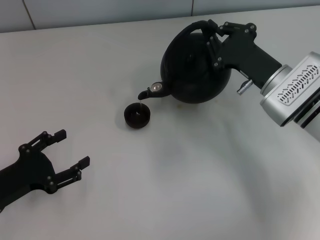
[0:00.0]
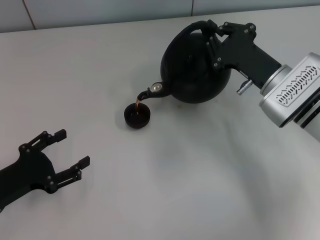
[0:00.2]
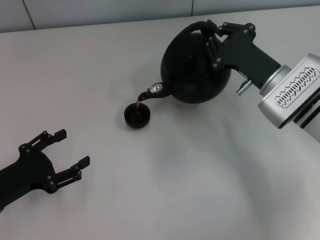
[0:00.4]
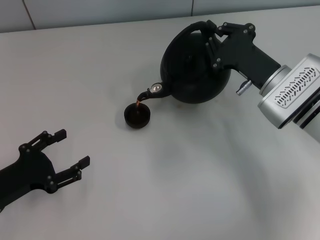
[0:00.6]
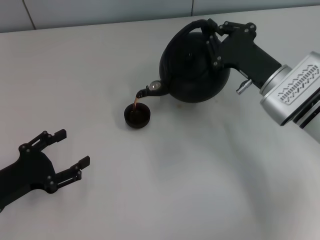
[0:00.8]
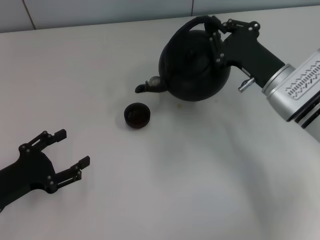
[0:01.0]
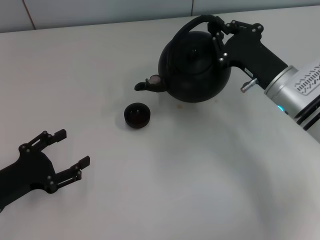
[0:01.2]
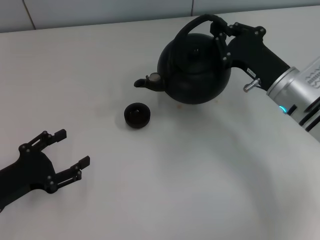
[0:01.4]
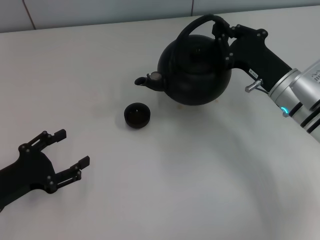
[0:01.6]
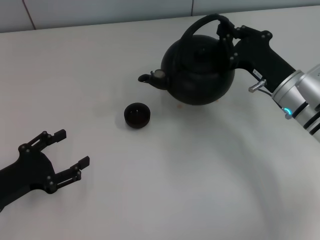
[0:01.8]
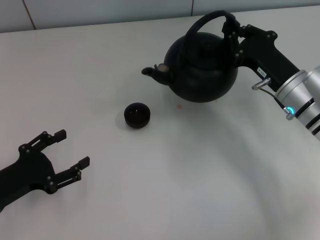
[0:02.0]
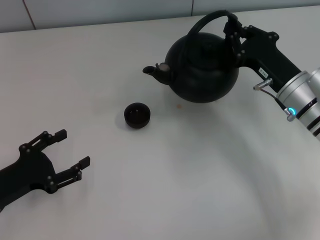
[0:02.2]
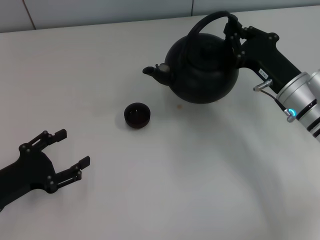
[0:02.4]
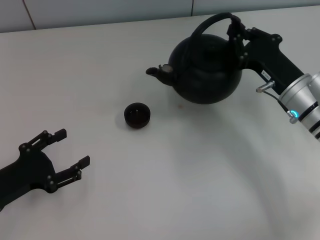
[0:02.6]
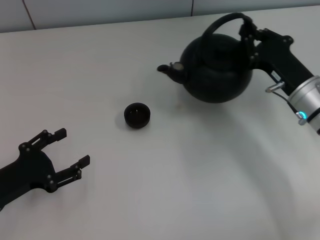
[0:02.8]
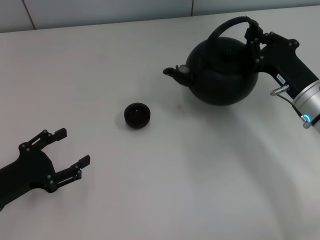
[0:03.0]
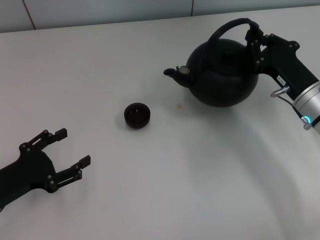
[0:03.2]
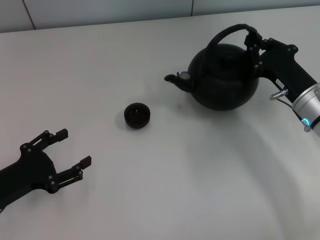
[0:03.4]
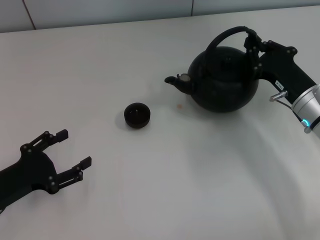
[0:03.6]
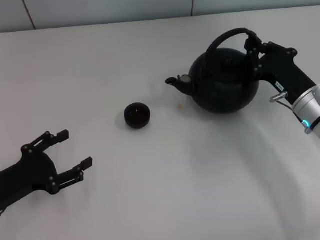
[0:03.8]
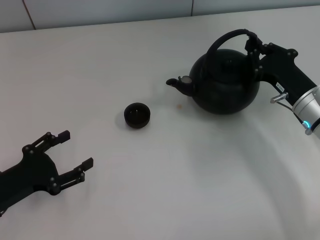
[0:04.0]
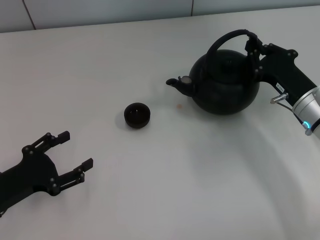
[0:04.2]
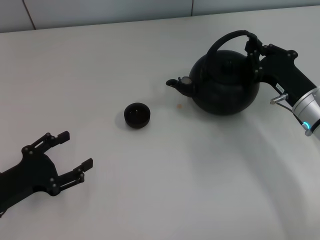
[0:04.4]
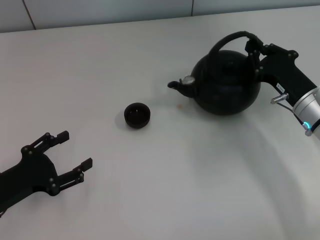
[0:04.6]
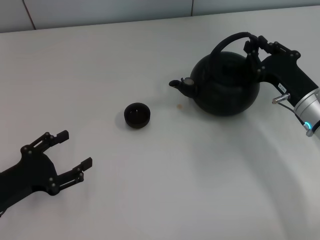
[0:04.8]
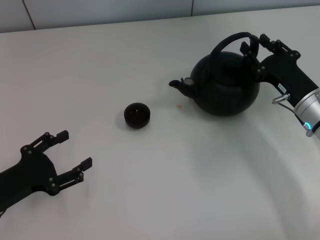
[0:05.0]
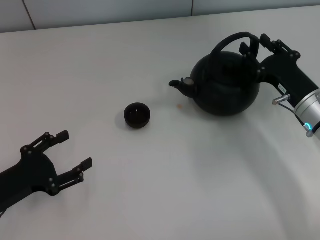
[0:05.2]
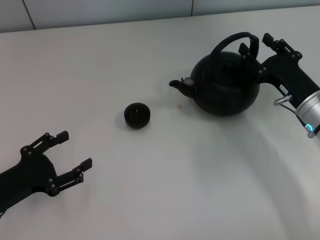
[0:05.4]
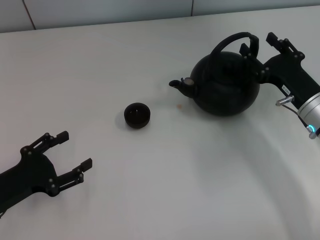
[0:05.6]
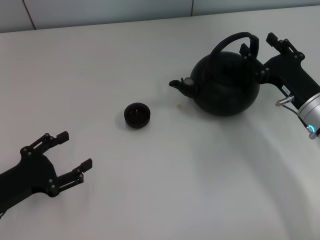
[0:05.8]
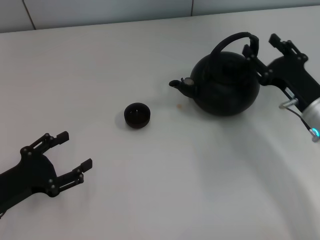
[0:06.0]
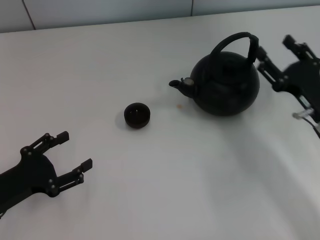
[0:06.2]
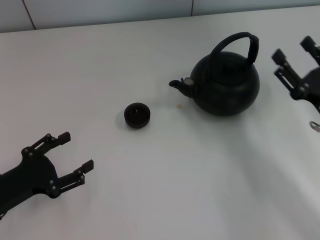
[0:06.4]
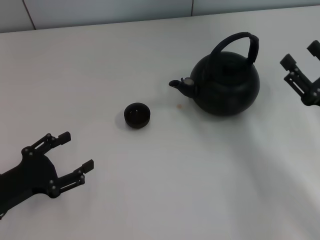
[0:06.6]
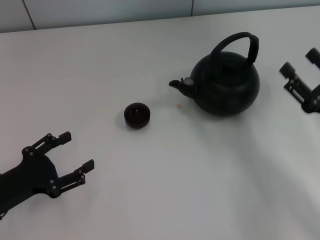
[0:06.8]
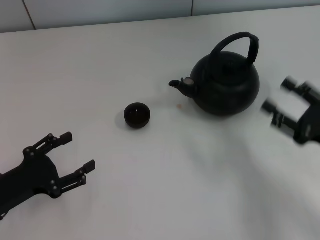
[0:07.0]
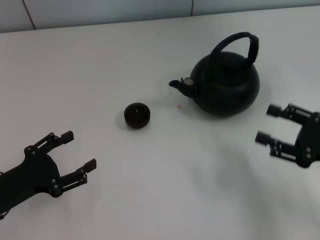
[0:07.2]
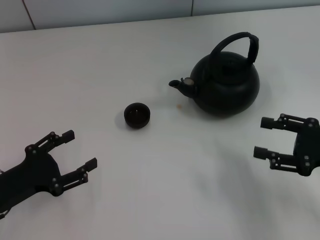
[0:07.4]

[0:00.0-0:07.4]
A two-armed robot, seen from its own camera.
Task of the whole recording: Grasp the handle of the teapot with one hand and pour tea into the teacup.
Step, 0:01.4 to 0:06.2: Put down the teapot with the right gripper.
0:00.0 to 0:01.4: The grippers move only a little.
0:01.4 to 0:03.0: There are only small adjustments of the grippers.
0:03.0 to 0:04.4: Neither gripper changes place.
0:04.4 to 0:06.0: The right gripper opens.
0:06.0 to 0:07.4: The right gripper is displaced backward and to the right by some 10 cm.

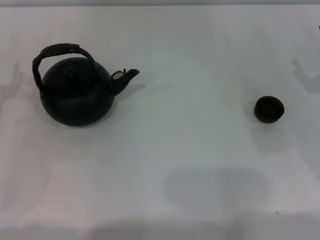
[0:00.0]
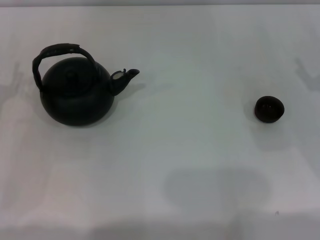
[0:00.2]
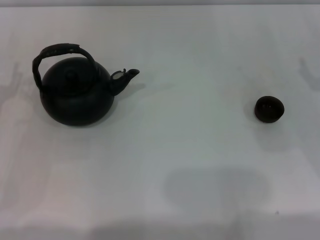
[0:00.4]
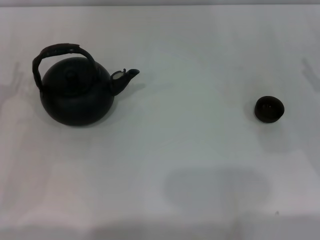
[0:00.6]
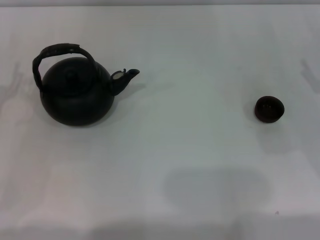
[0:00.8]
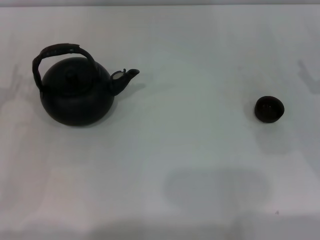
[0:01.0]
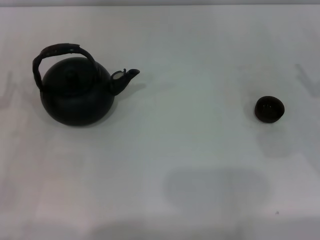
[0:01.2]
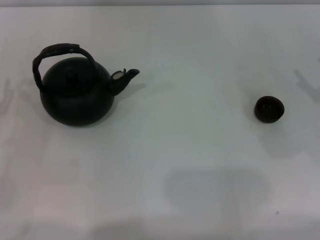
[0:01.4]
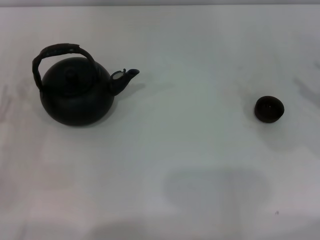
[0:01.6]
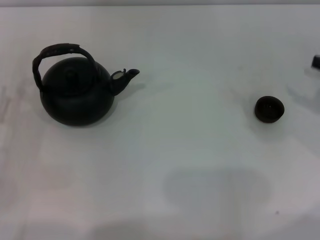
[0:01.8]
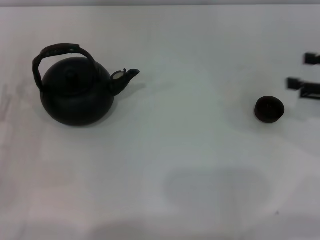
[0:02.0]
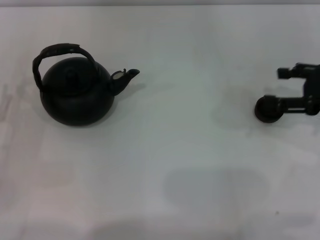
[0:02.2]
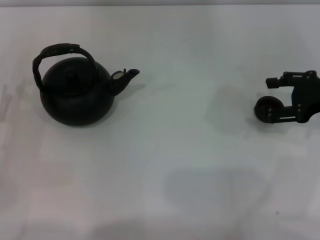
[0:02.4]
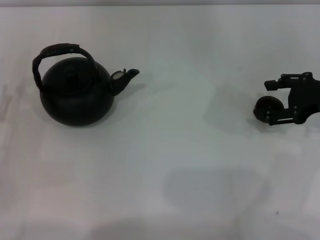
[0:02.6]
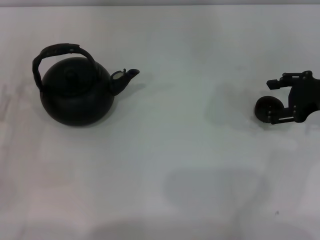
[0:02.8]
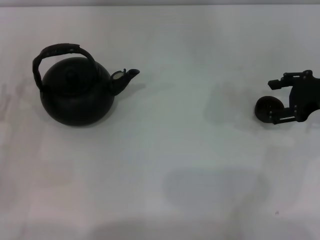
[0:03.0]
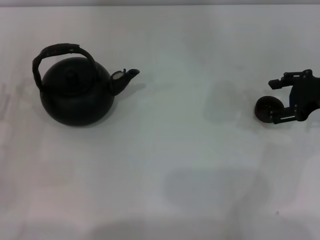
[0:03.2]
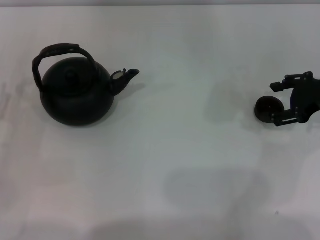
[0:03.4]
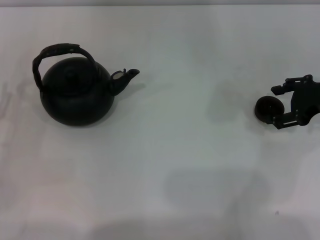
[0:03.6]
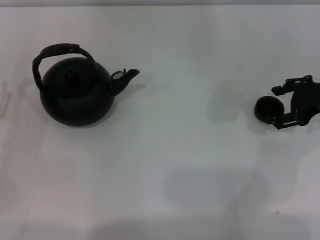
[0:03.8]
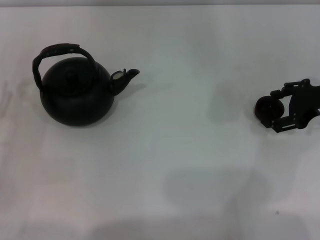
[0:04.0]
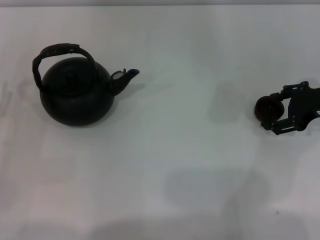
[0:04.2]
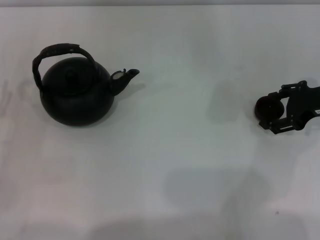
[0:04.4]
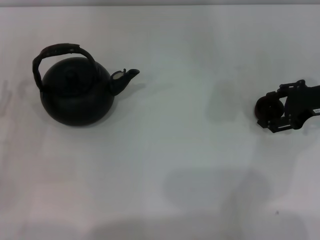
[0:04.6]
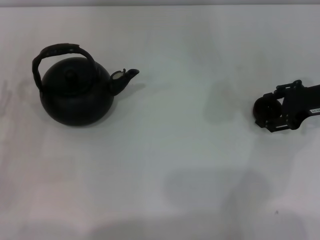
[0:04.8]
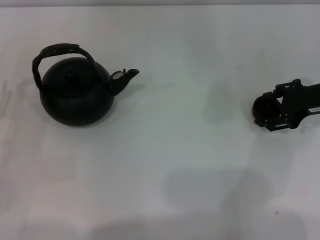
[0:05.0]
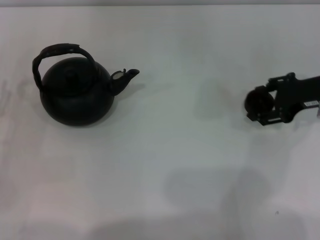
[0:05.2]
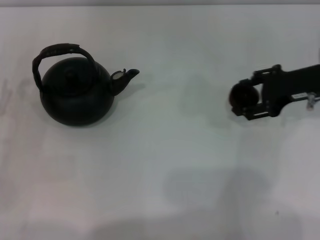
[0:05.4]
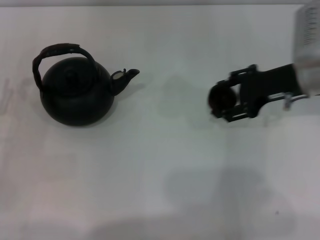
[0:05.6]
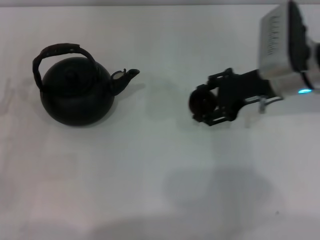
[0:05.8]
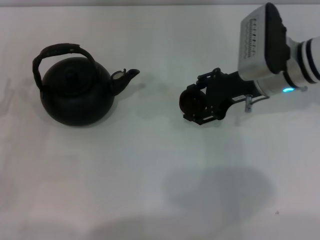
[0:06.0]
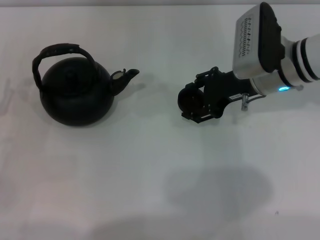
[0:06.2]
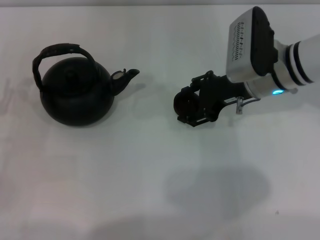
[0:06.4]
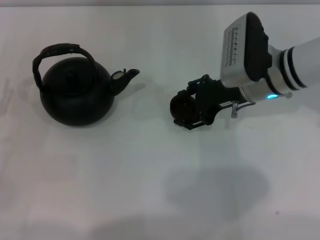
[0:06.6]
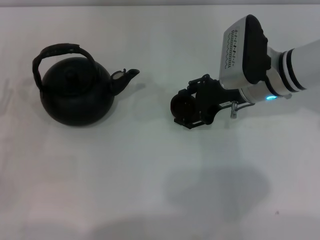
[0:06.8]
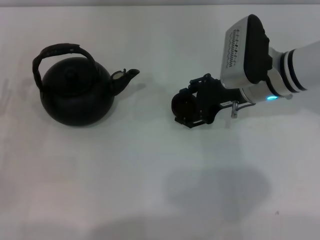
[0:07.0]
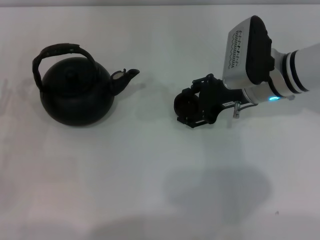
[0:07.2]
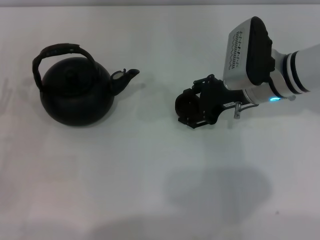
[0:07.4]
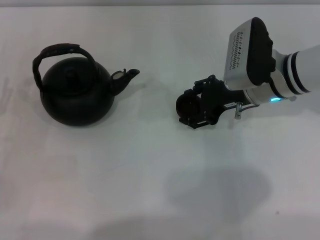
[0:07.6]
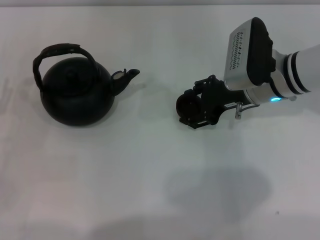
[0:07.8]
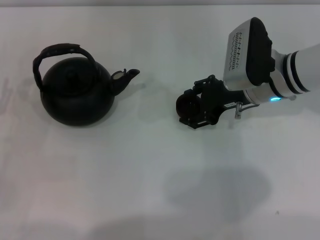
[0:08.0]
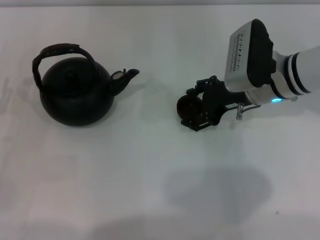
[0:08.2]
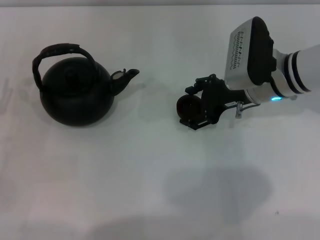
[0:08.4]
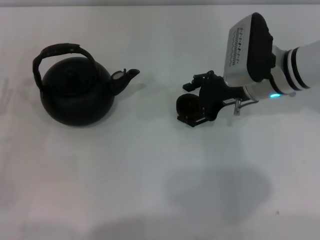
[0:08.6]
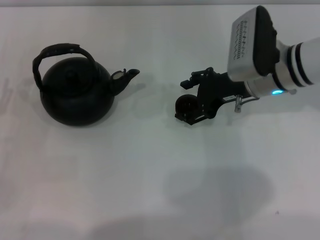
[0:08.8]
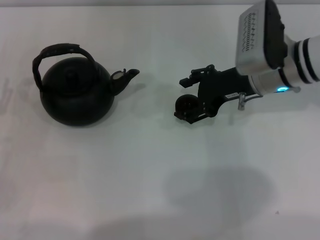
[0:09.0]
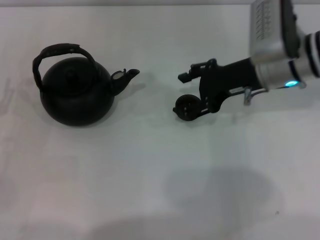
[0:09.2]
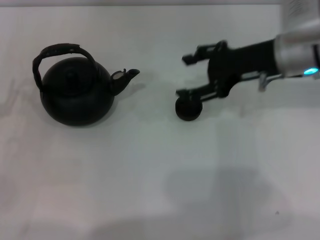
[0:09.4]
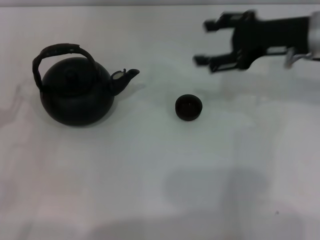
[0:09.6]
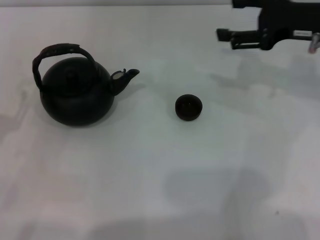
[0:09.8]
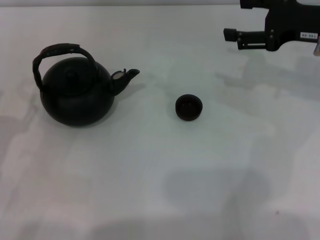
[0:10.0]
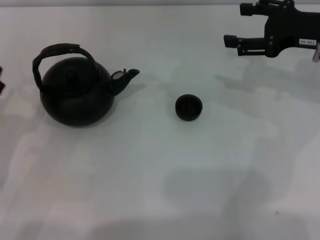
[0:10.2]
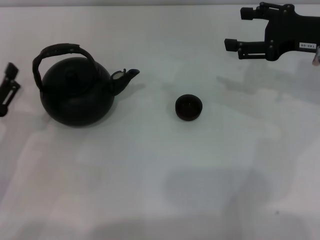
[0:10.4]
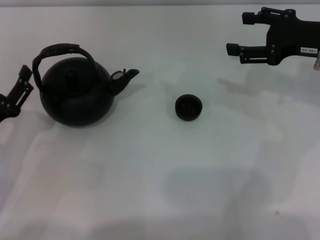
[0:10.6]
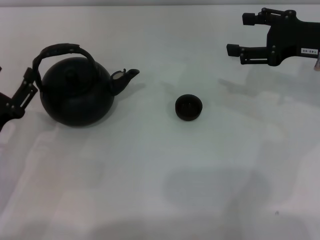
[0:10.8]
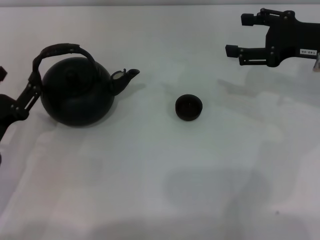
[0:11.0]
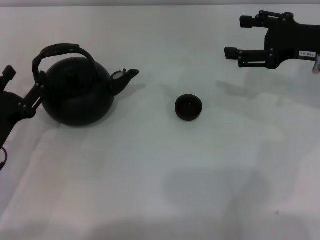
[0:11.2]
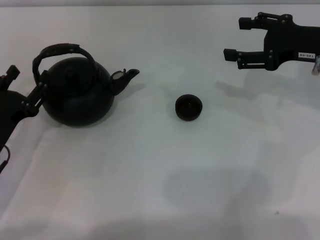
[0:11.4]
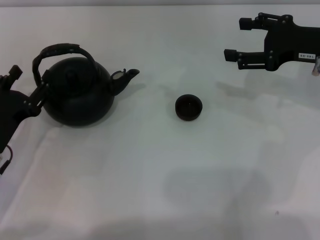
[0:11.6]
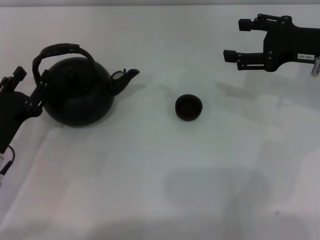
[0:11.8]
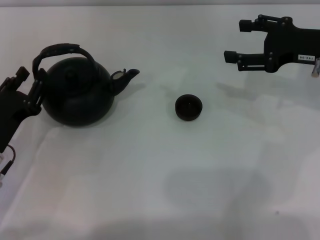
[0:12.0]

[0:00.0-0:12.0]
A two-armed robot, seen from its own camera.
Task of the whole recording: Grasp the handle of the teapot with one hand and pour tea into the teacup.
Step, 0:00.0 to 0:05.0: Pick up the teacup with the right gripper.
Step, 0:05.4 to 0:09.2: Place the teacup in the center of view with the right gripper.
0:01.6 to 0:03.0: The right gripper moves to the left and forward, approximately 10 cm.
0:03.0 to 0:04.4: There are only small adjustments of the grippers.
0:04.4 to 0:06.0: The right gripper moves to the left, approximately 15 cm.
0:06.0 to 0:09.0: The grippers stay close to where they were, moving slightly.
0:09.0 to 0:10.4: The right gripper goes approximately 10 cm to the right.
0:10.4 to 0:12.0: There are only small adjustments of the grippers.

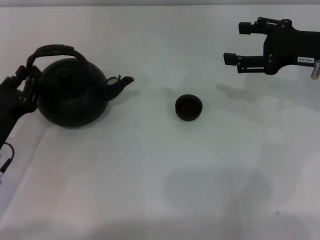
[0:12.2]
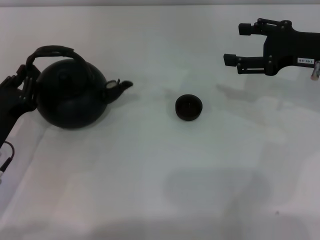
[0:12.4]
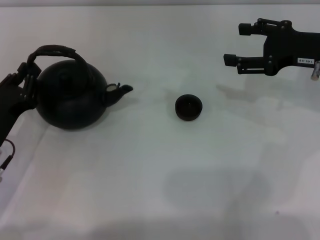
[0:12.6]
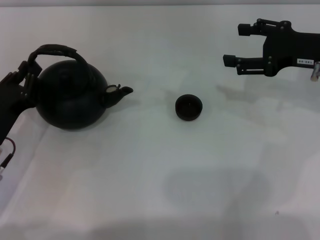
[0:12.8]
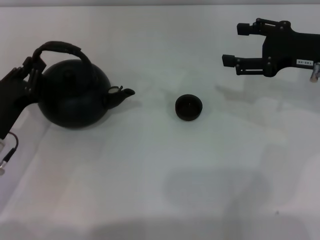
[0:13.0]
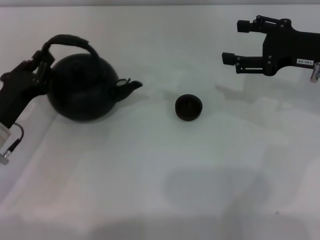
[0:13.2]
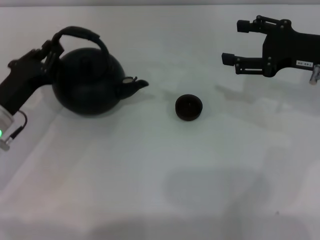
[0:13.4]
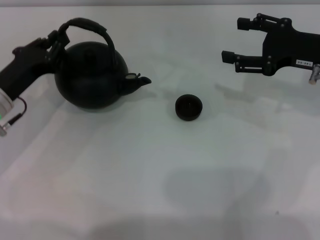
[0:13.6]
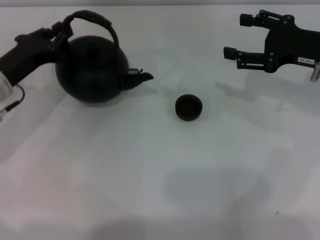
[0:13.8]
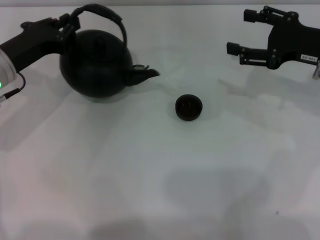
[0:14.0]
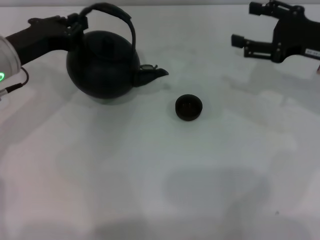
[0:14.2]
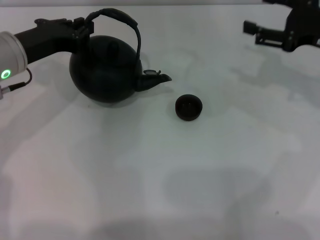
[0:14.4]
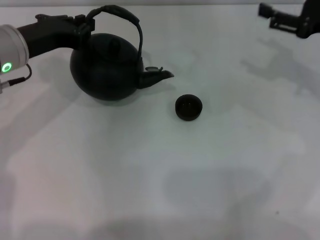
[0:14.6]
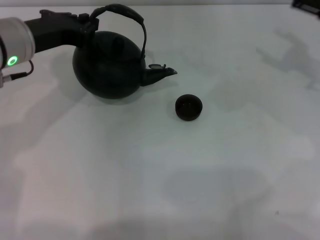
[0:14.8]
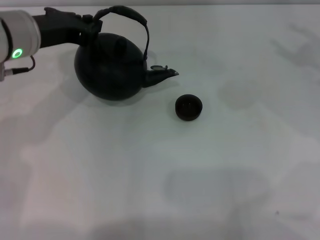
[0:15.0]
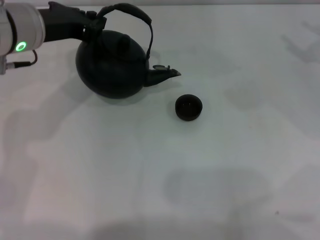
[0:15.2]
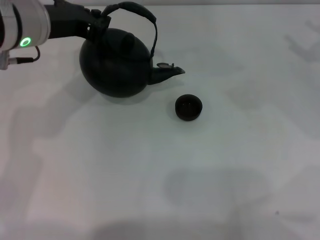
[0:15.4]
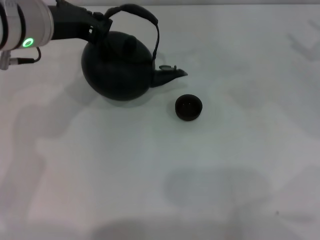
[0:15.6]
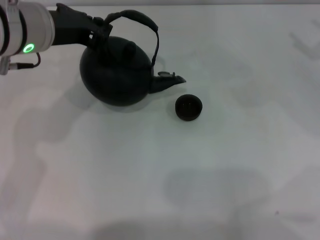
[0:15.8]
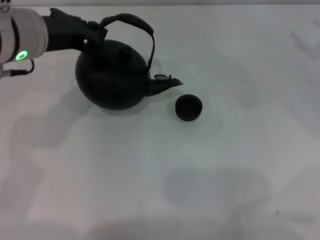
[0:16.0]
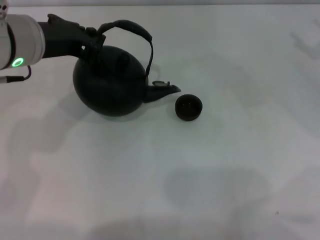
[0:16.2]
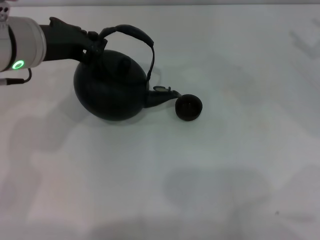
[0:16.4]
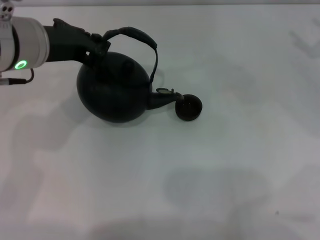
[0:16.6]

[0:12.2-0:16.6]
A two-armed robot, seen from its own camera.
Task of the whole recording: Grasp the handle of the teapot with one hand and pour tea into the teacup.
Step, 0:12.2 to 0:16.0: Pick up the teapot with the left gripper.
0:12.2 to 0:13.6: The left gripper heads forward, covering some 10 cm, and closes up.
0:13.6 to 0:15.2: The left gripper shifts approximately 15 cm upward and to the right. Meanwhile the right gripper travels to the right by some 10 cm.
0:15.2 to 0:16.6: There are only small adjustments of the grippers.
